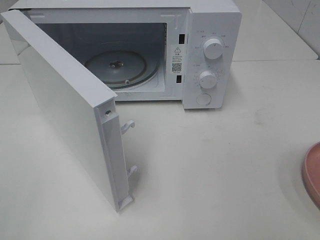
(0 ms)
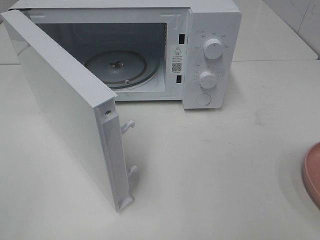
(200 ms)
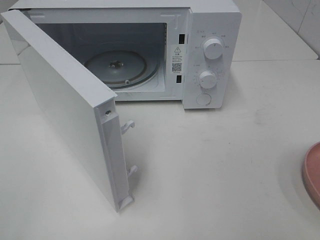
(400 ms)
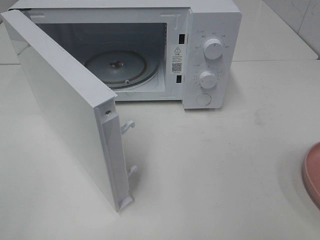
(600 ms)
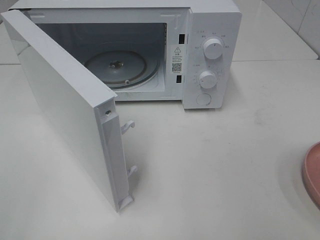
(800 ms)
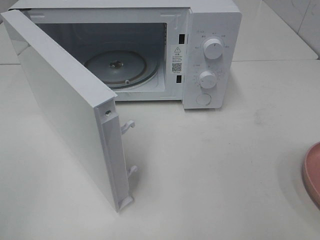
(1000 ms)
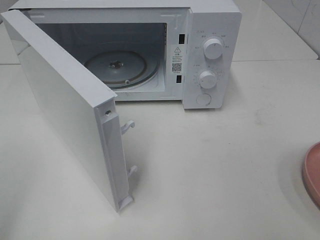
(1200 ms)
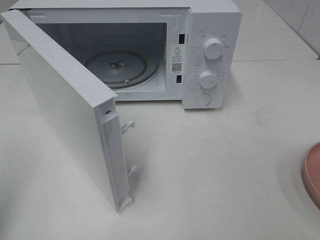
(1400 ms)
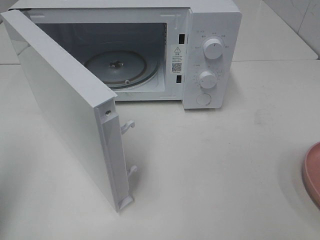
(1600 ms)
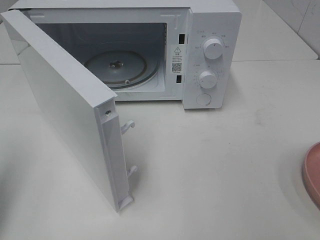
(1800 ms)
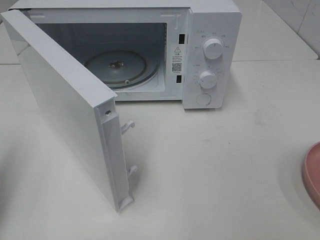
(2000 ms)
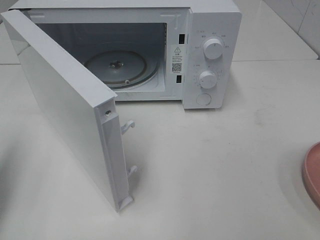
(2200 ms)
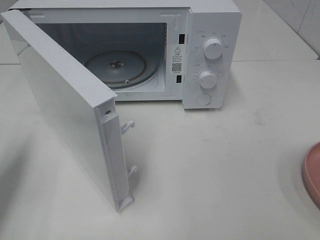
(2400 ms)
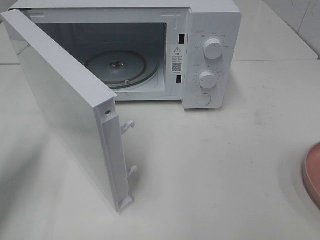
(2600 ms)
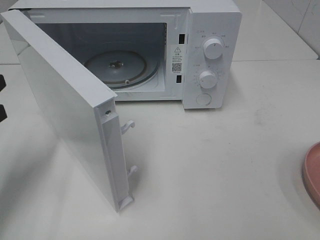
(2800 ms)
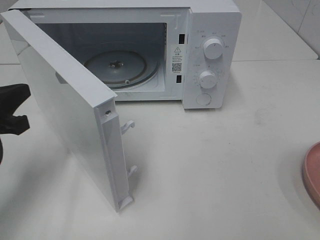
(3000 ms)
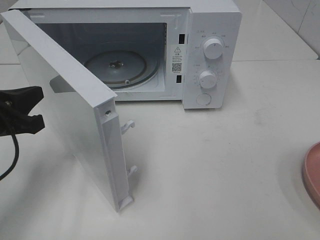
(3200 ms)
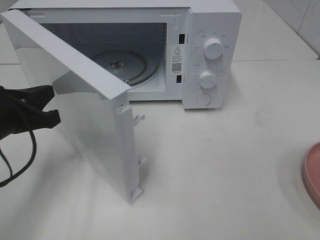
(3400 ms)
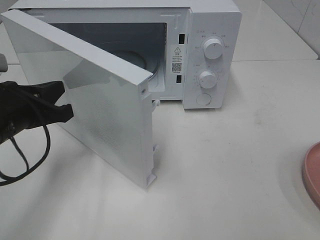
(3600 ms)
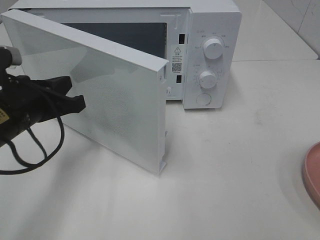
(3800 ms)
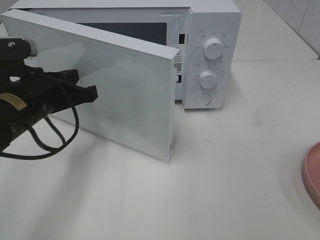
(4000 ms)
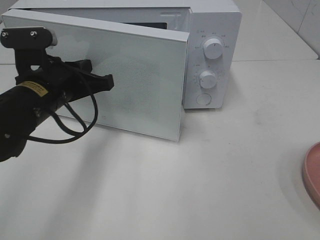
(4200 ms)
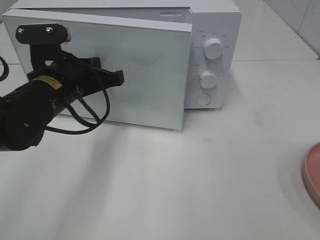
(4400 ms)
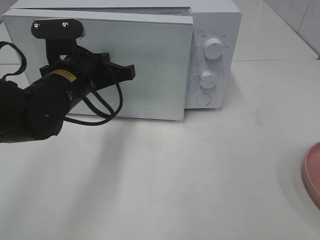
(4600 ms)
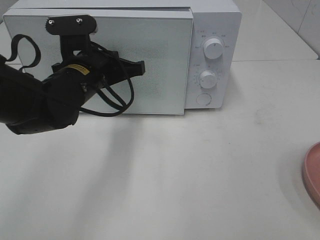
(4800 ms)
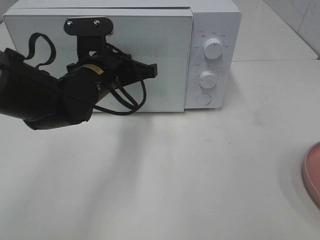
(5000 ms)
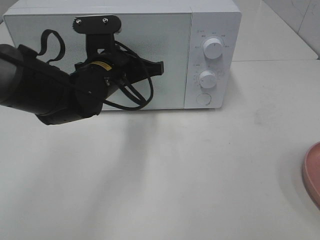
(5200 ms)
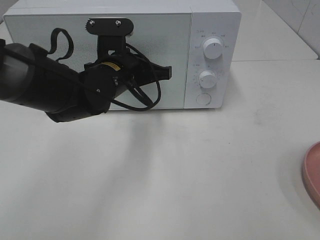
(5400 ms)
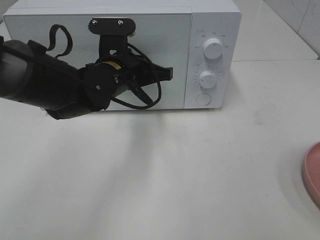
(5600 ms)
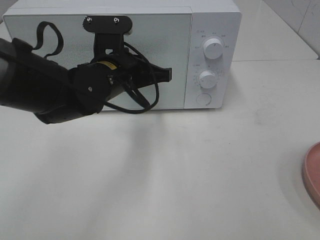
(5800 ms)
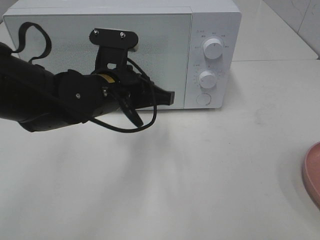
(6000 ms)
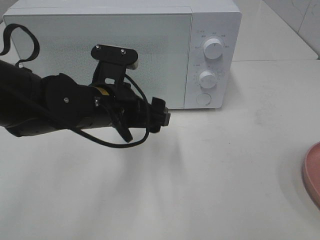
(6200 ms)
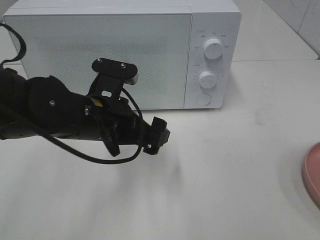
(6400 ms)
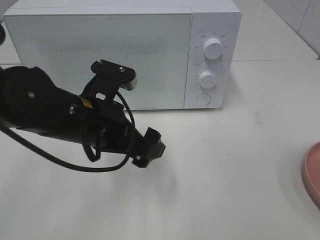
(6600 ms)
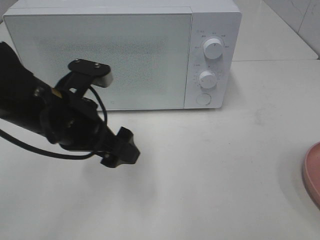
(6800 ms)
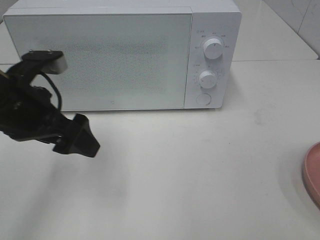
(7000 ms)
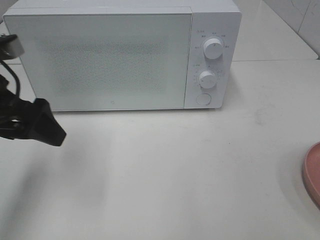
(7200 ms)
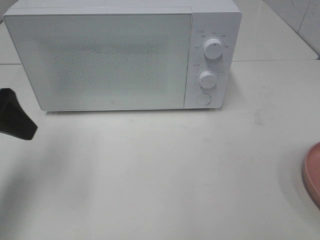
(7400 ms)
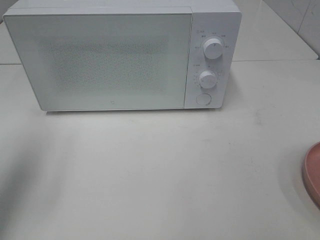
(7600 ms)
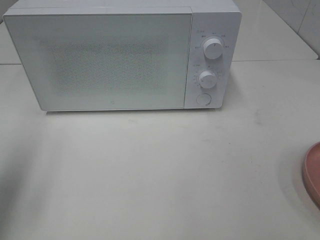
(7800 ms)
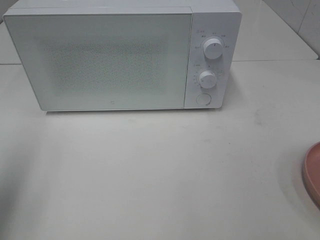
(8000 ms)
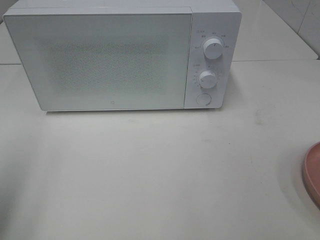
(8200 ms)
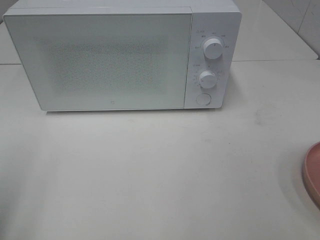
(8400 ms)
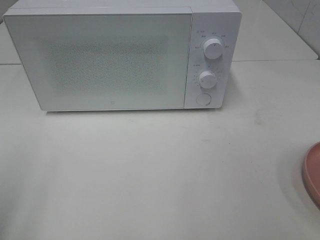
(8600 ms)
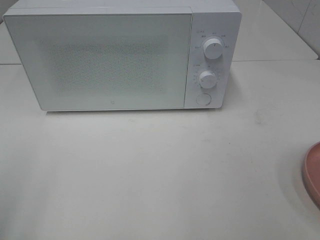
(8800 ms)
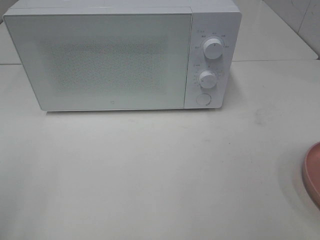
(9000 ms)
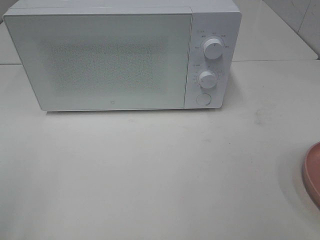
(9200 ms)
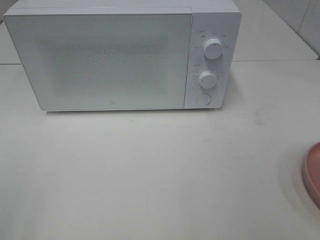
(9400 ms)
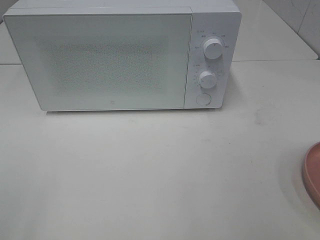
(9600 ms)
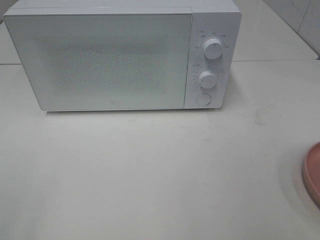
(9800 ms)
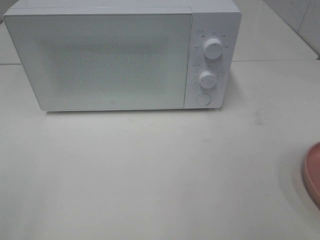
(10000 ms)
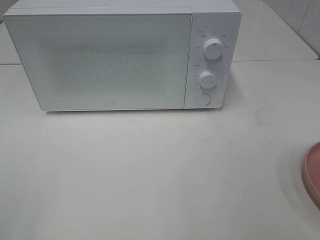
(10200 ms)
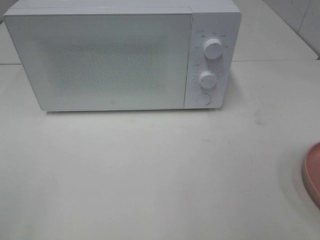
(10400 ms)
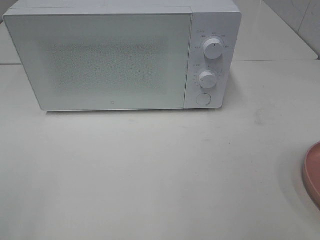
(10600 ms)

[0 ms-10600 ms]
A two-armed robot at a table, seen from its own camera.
Task of the whole recording: Heat the burger.
Step, 0 ms to 5800 ms: Left hand: close the microwave door.
0 ms to 1600 ms: The left gripper is displaced forward by approximately 10 cm, and closes up.
1600 ms to 3000 ms: The left gripper goes approximately 15 cm downward, forward and to the right.
3000 ms to 4600 ms: The left gripper heads to the right and forward, covering about 15 cm.
4600 ms to 6000 ms: The left gripper moves to the right, some 5 cm.
6000 ms to 7600 ms: The left gripper is displaced to the left and upward by some 25 cm, and opens up.
7600 ms to 9000 ms: The left gripper travels backward by some 15 cm.
